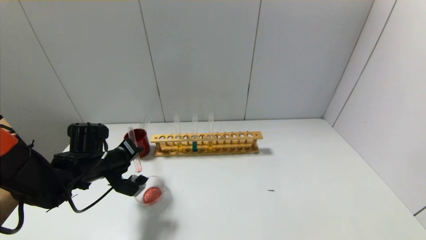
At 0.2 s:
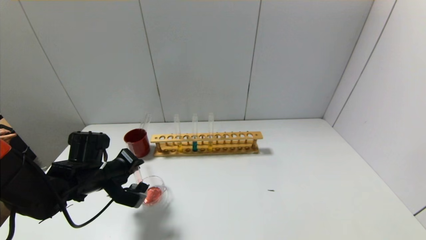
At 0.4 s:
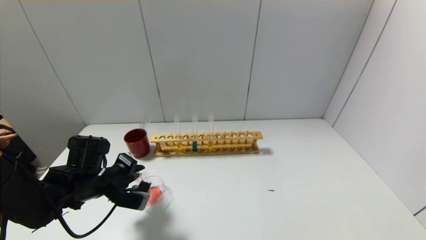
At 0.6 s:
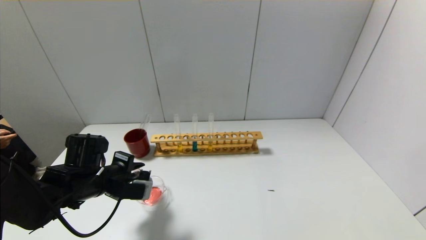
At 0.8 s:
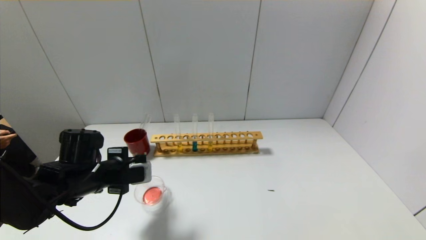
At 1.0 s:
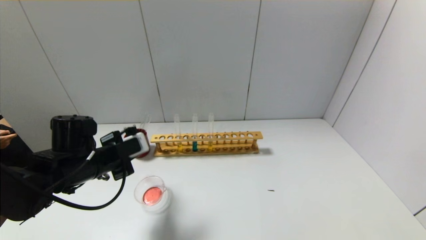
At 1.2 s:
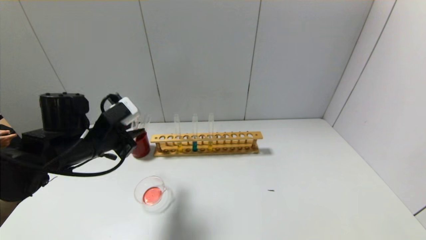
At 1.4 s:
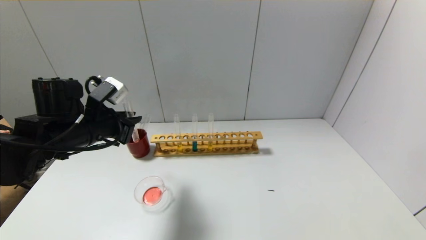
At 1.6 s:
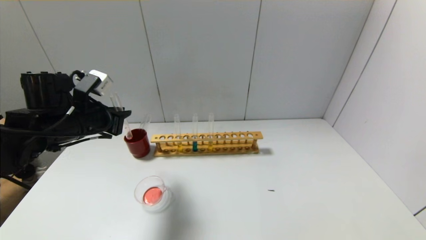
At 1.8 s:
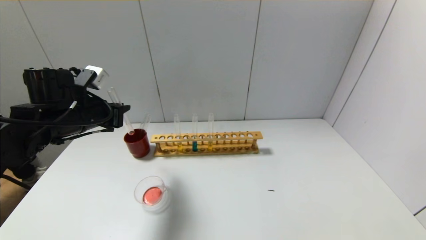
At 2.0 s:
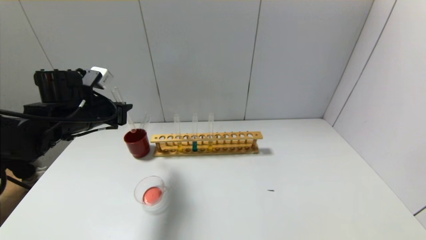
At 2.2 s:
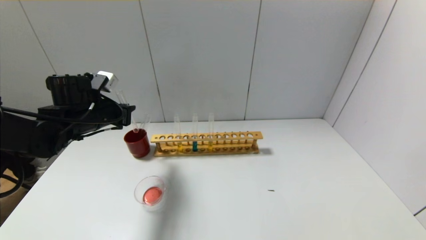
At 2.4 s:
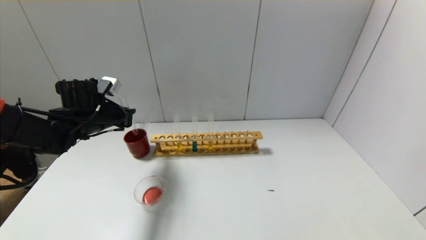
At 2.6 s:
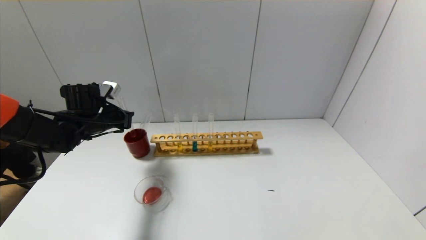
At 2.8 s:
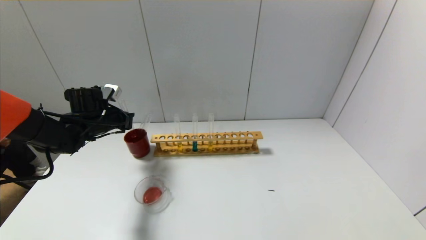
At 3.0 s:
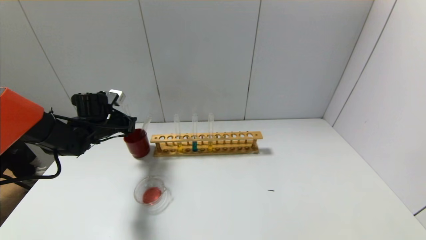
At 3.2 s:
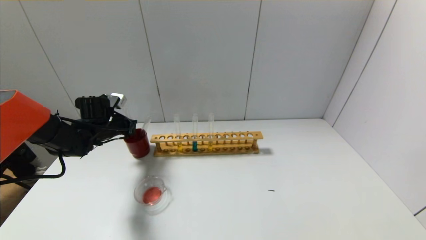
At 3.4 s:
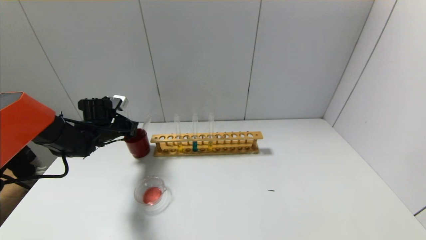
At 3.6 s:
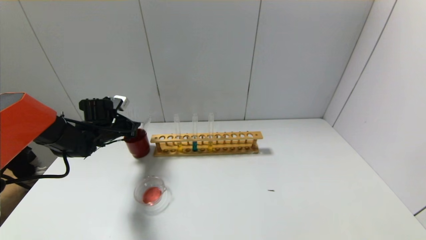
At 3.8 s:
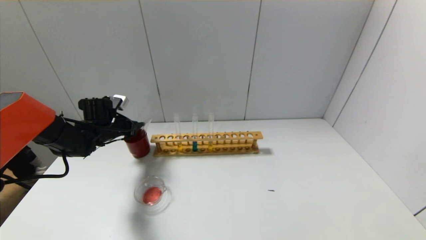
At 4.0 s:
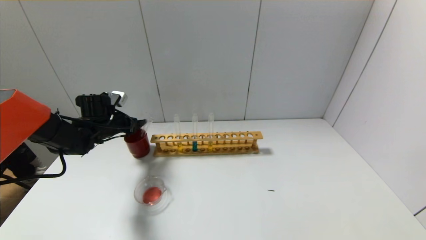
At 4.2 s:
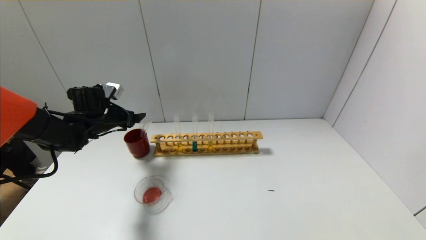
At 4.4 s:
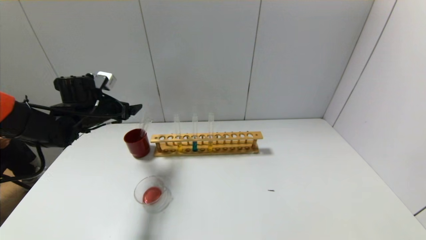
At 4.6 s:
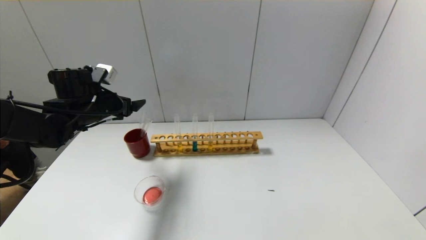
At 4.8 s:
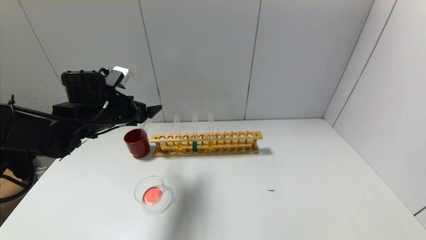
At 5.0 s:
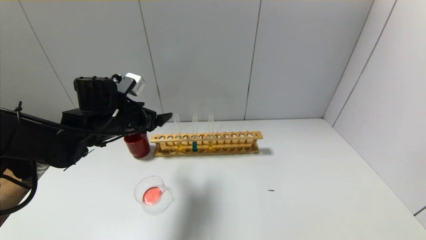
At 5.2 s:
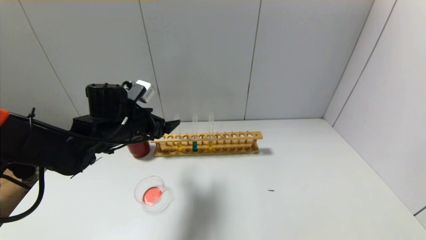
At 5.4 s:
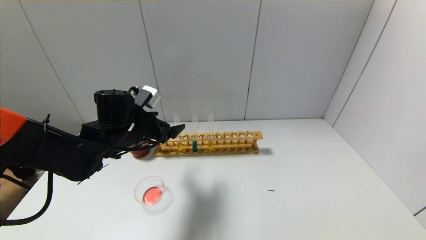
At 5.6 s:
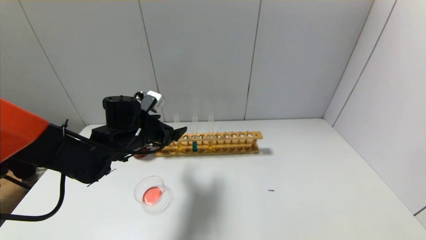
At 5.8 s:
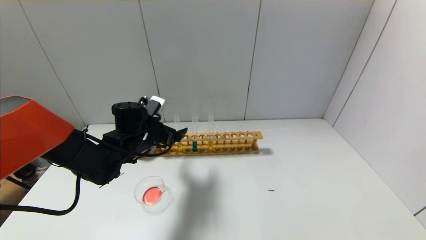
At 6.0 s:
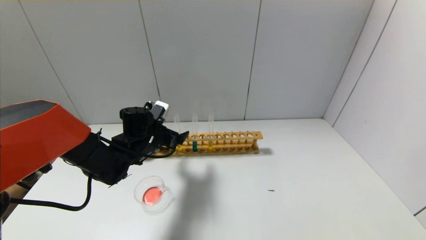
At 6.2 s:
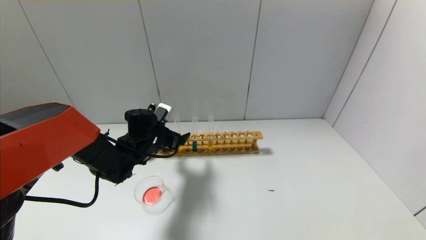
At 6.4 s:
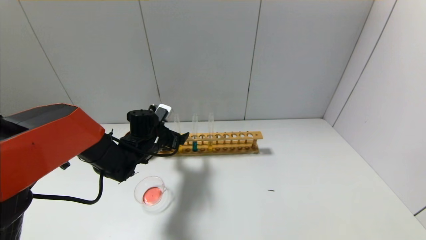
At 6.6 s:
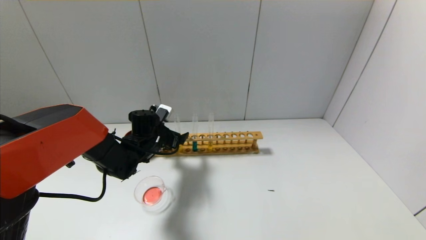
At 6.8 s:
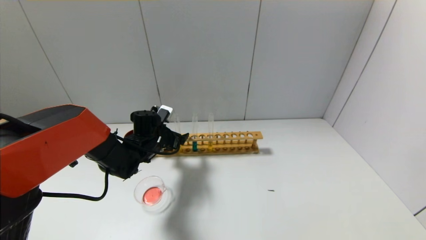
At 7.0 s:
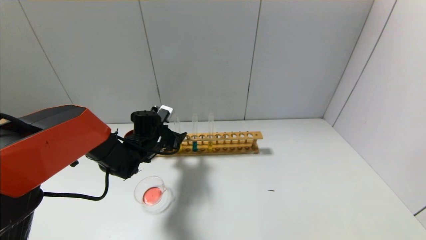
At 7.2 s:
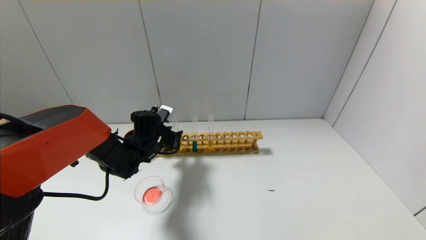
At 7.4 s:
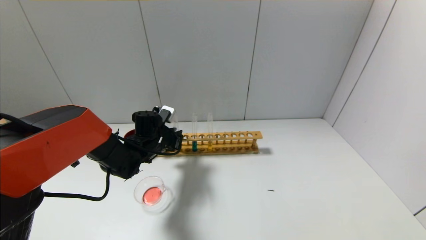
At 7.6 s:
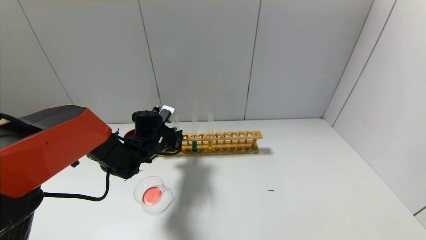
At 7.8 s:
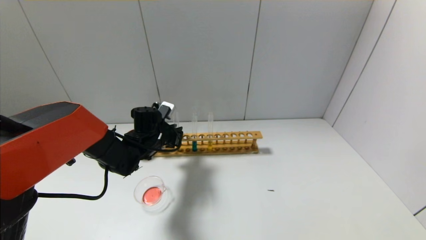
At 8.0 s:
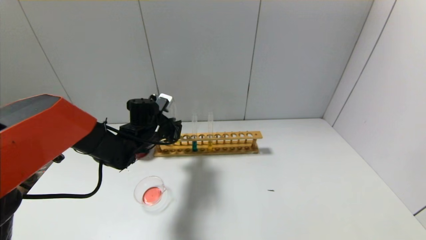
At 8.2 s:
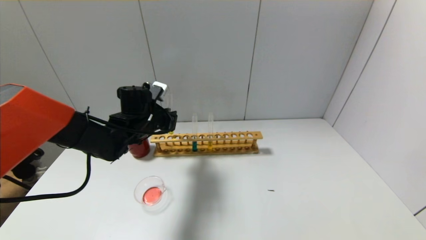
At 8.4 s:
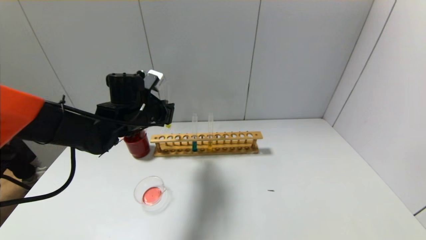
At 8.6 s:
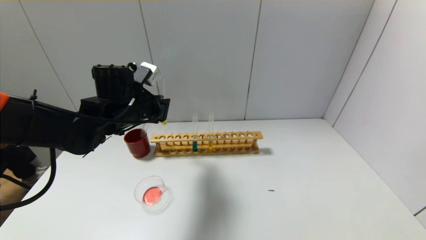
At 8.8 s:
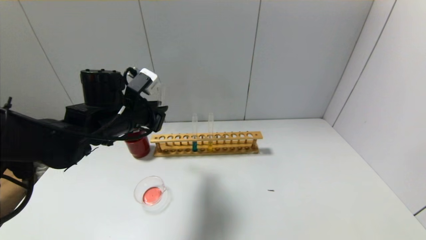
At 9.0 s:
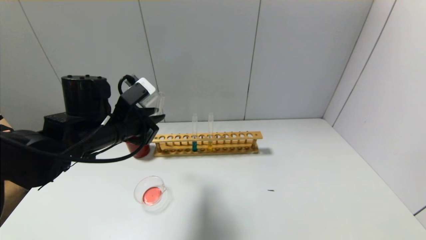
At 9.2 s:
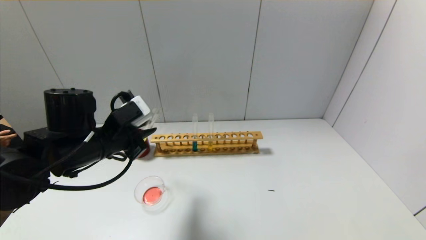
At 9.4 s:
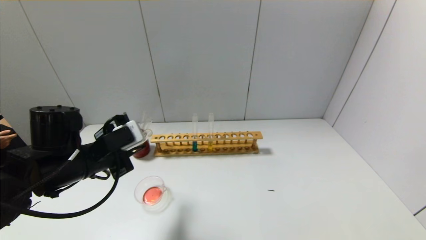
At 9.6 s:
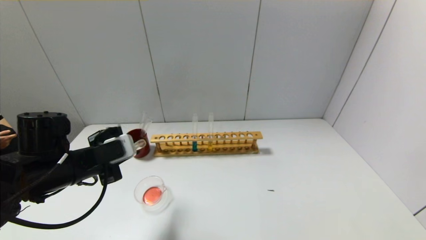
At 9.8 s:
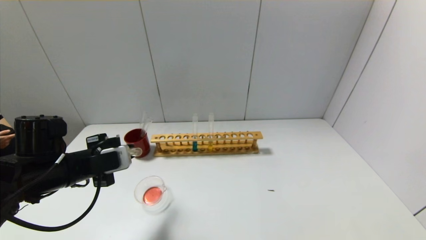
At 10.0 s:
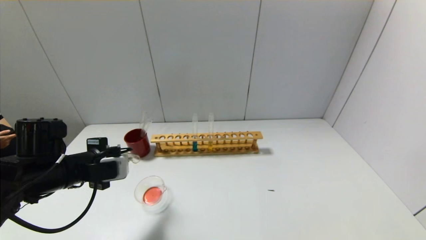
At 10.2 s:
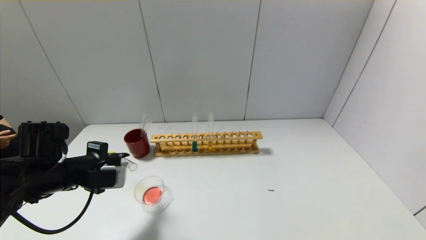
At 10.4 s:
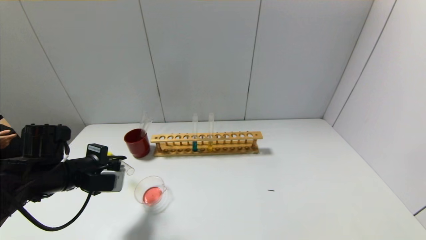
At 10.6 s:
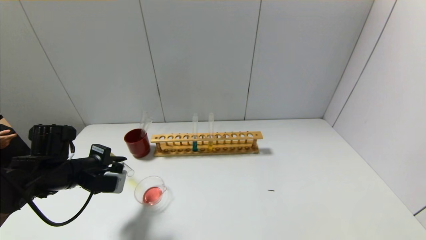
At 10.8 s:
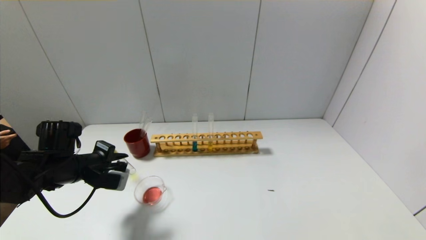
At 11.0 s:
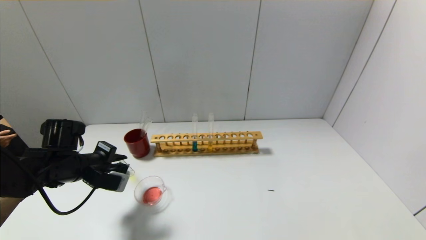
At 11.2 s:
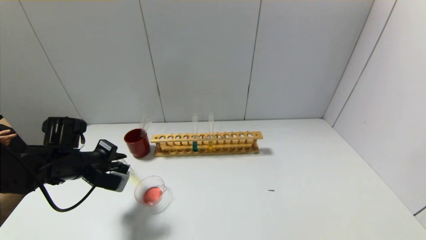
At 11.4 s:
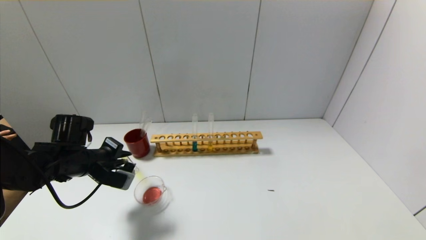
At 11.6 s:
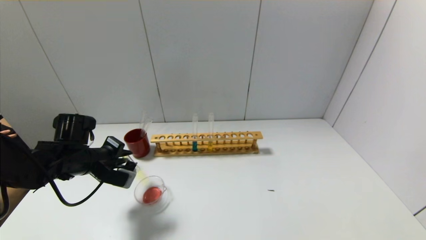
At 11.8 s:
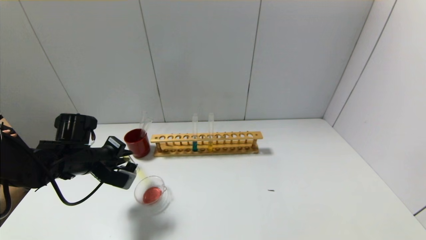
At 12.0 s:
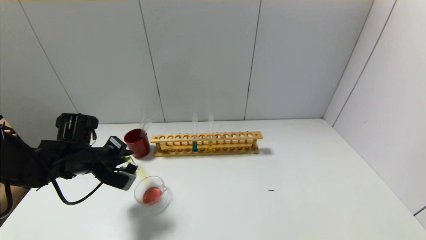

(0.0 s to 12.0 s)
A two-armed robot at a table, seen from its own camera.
Step, 0.6 s - 3.6 s: Place the test tube into the brown cup with the left gripper.
Step, 3.8 s - 7.4 s: Grasp the yellow reagent with the left gripper.
0.0 s - 1.6 s: The left gripper moves upward, some 10 cm.
1.6 s - 3.0 s: The left gripper goes some 15 cm forward and downward.
3.0 s - 4.4 s: The left gripper travels upward by approximately 5 cm, and opens.
4.4 s - 6.0 s: The left gripper moves to the right and downward, roughly 15 cm.
6.0 s - 7.6 s: The left gripper closes up.
7.6 s - 9.0 s: The left gripper heads upward and backward, covering about 15 cm.
9.0 s - 10.4 s: The left gripper shifts approximately 15 cm to the left and downward.
10.4 s - 12.0 s: The left gripper shifts by approximately 5 cm.

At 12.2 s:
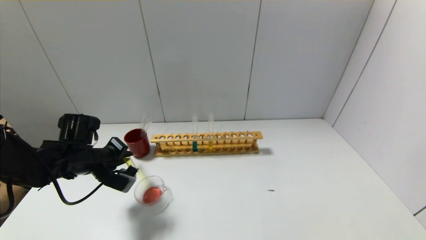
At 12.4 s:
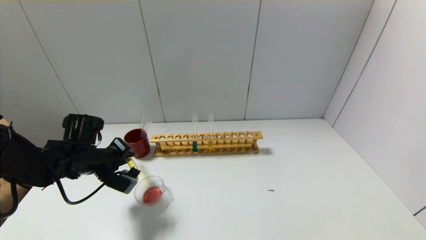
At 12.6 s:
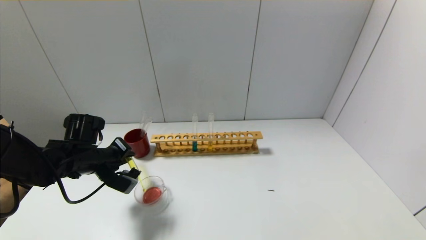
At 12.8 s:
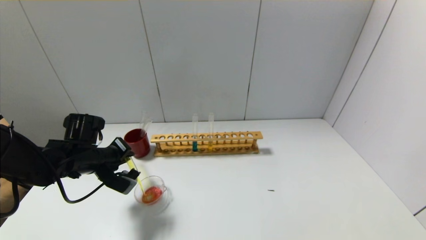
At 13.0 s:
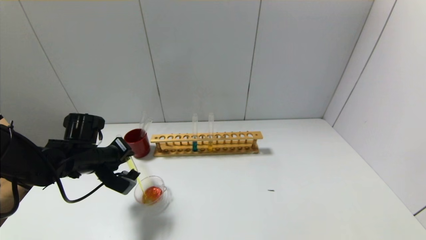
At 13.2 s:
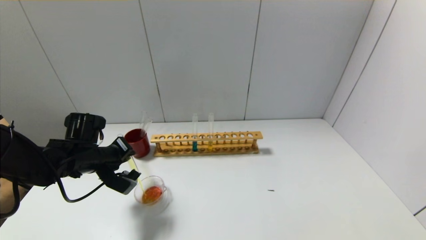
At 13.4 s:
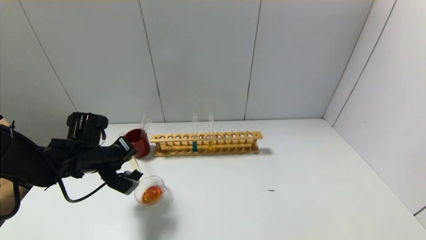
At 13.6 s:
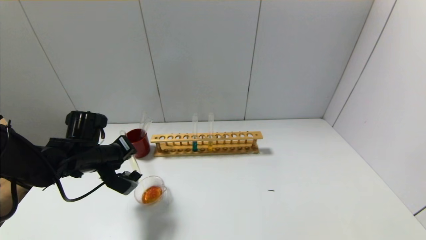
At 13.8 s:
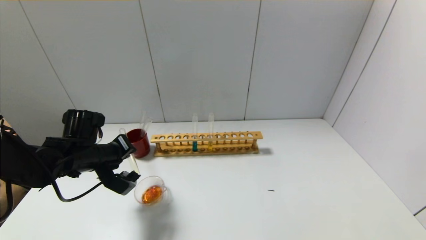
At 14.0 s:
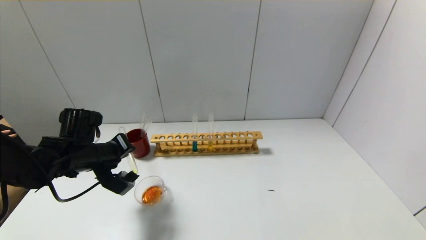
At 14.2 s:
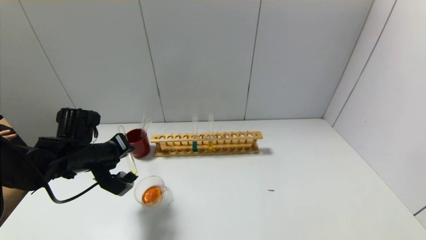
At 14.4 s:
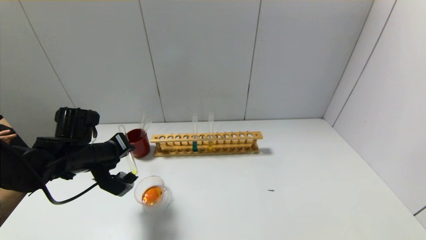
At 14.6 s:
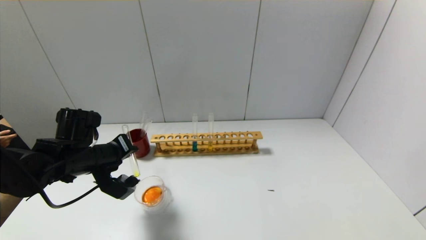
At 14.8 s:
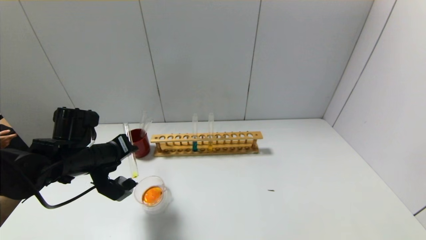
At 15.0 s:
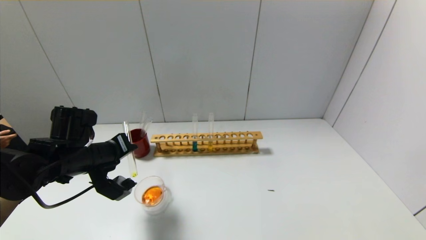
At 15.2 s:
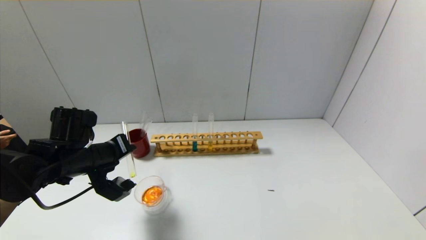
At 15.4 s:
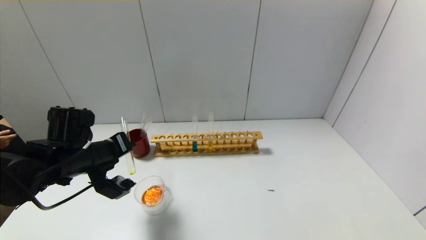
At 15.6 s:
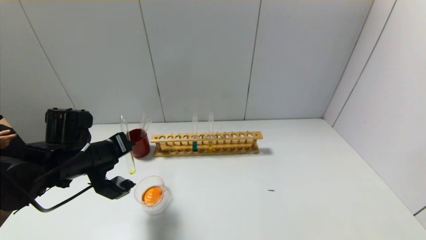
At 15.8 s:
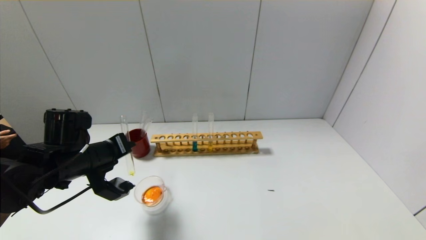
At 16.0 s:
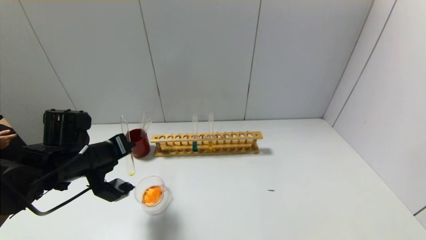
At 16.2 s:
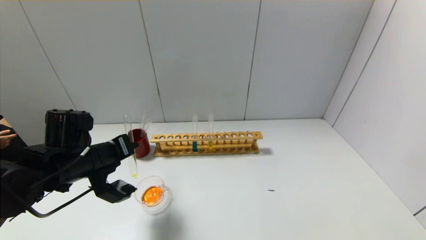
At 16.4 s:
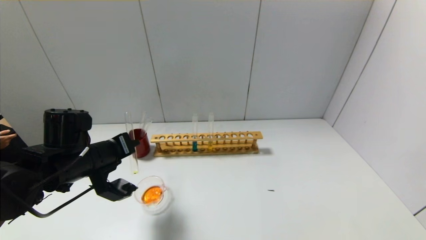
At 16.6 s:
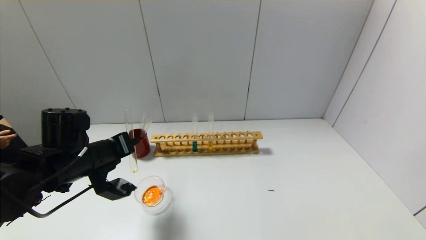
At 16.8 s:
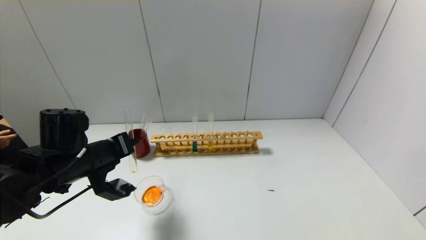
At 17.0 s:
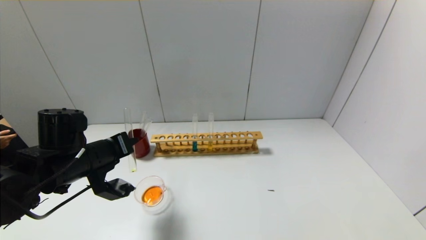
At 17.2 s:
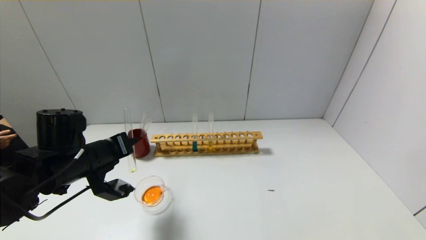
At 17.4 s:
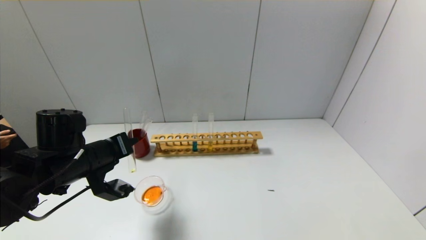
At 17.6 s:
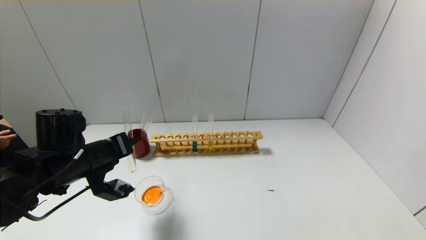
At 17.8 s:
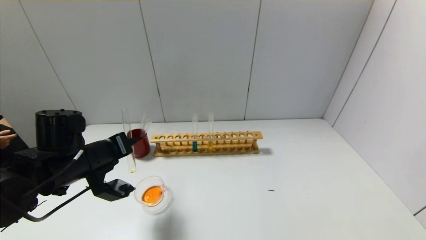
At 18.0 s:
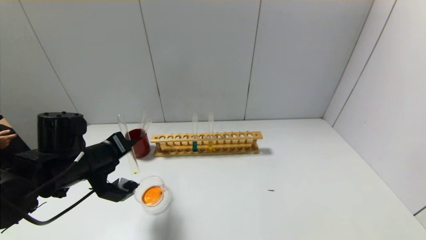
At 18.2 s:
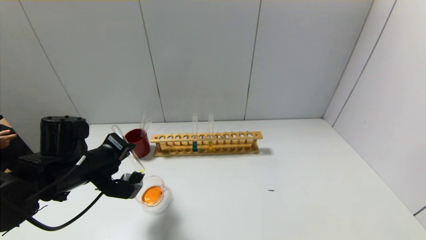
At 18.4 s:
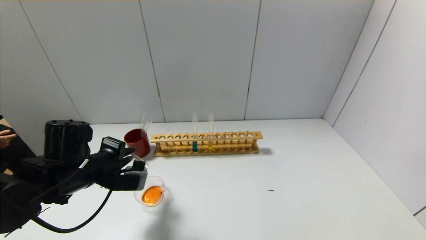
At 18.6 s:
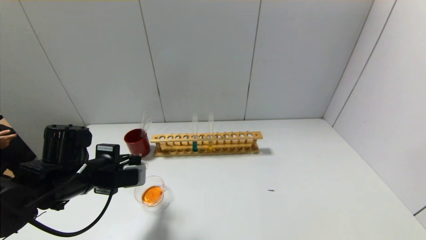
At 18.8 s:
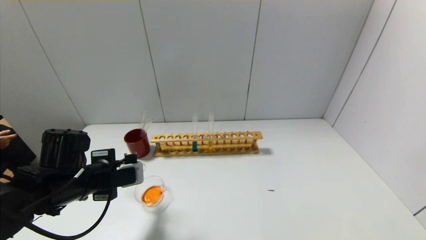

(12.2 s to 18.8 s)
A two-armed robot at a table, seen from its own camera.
Step, 12.2 s - 18.2 s: Pour the yellow reagent into the graduated cylinder with the left gripper.
12.2 s - 13.8 s: The grippers make only small movements.
13.8 s - 15.4 s: The grippers move only a little.
15.4 s - 17.2 s: There are only small adjustments of the grippers.
